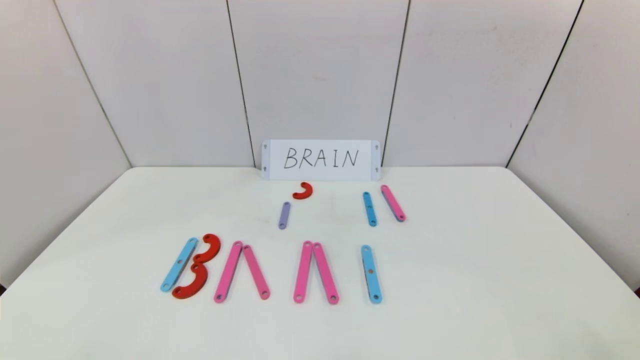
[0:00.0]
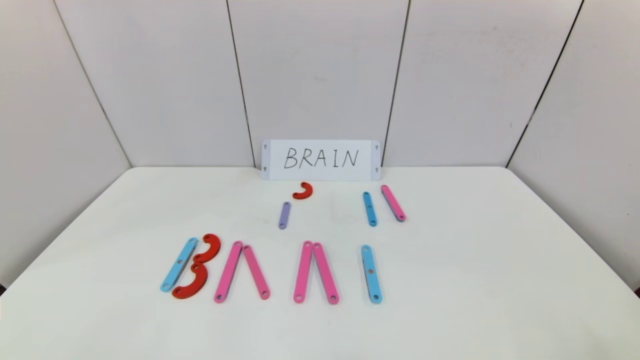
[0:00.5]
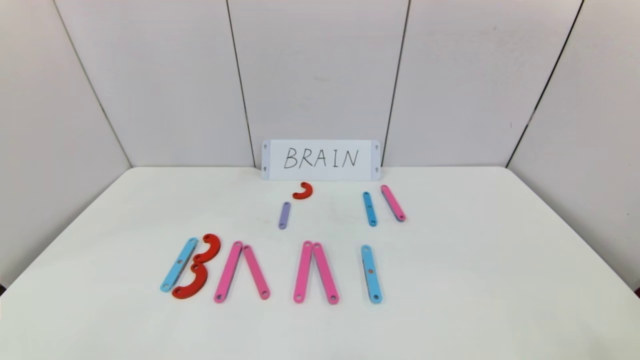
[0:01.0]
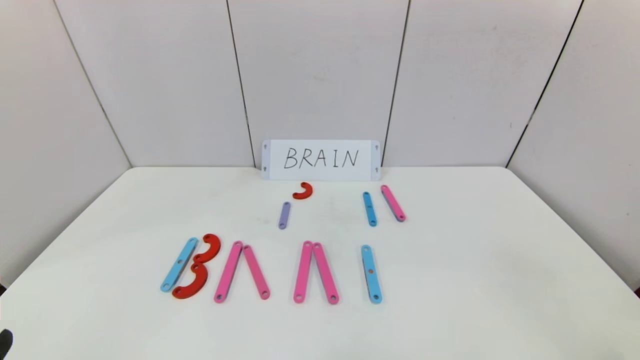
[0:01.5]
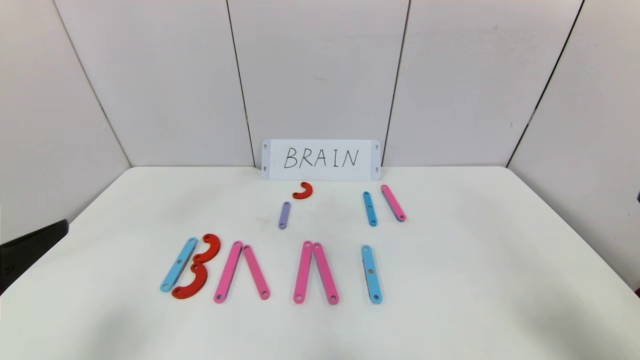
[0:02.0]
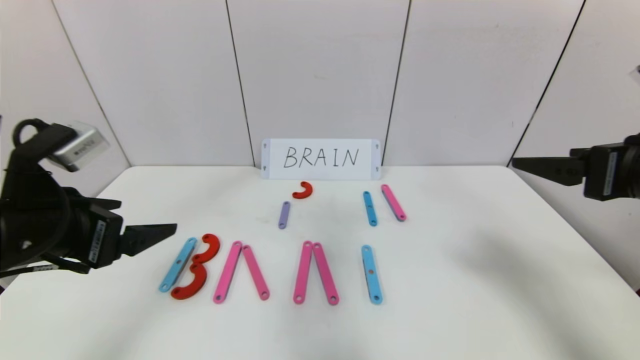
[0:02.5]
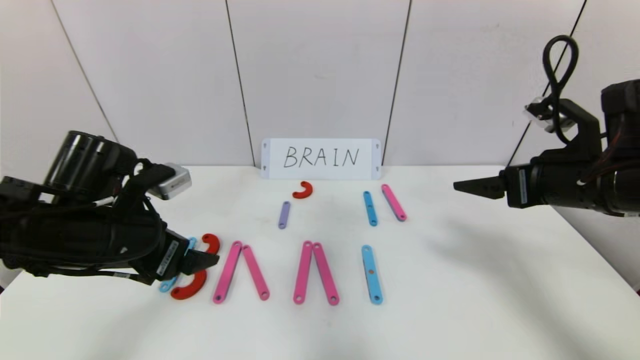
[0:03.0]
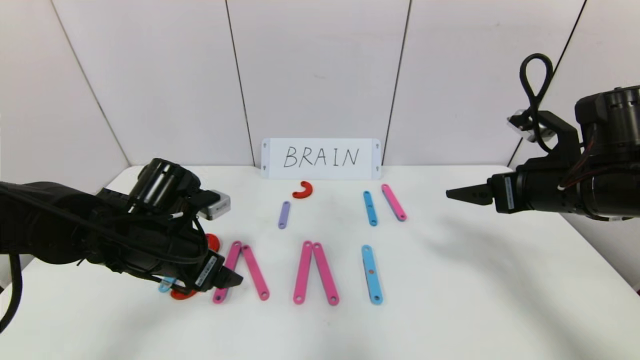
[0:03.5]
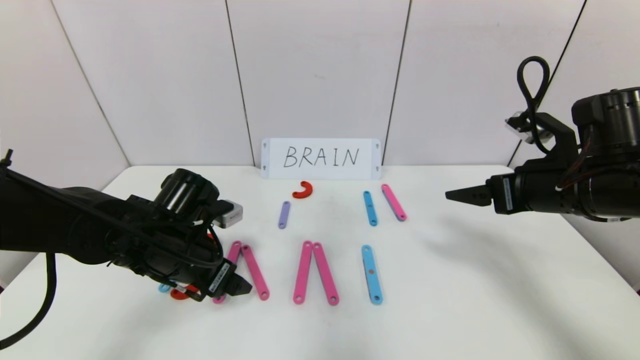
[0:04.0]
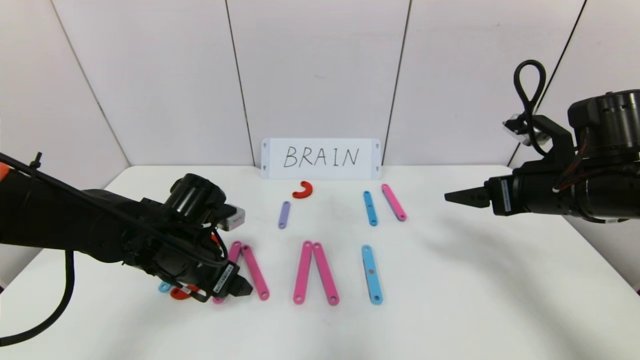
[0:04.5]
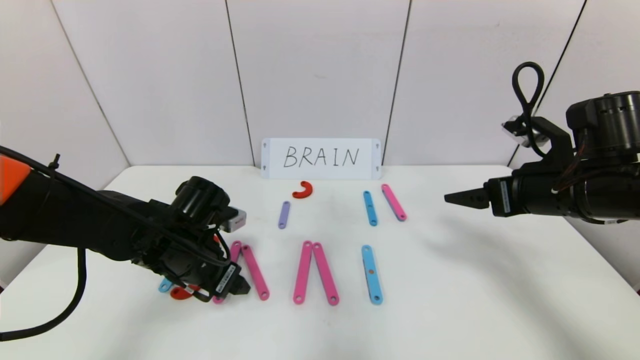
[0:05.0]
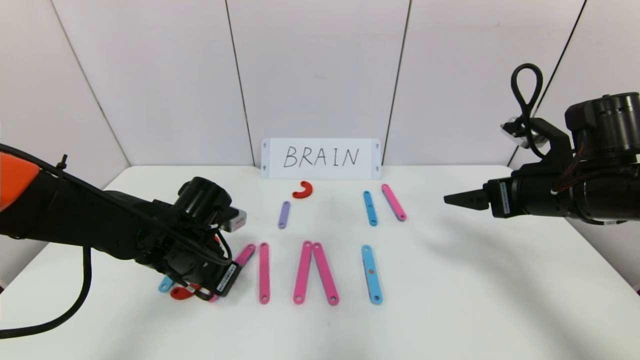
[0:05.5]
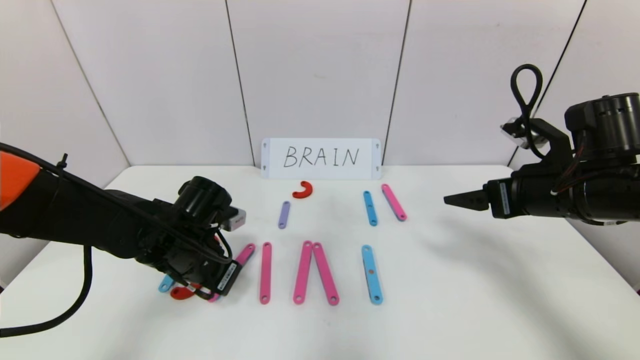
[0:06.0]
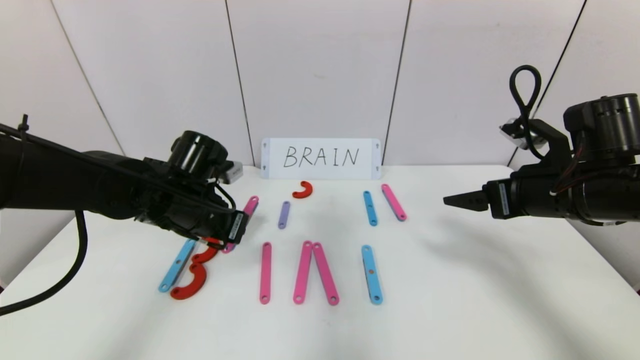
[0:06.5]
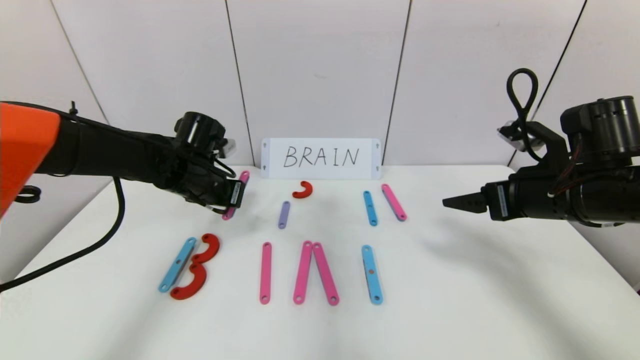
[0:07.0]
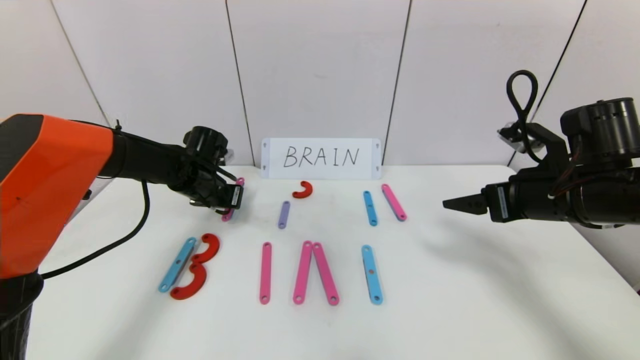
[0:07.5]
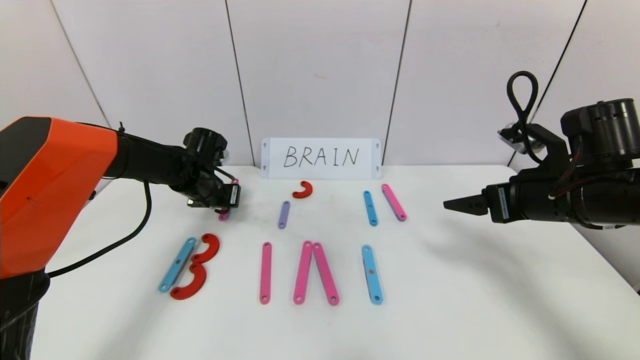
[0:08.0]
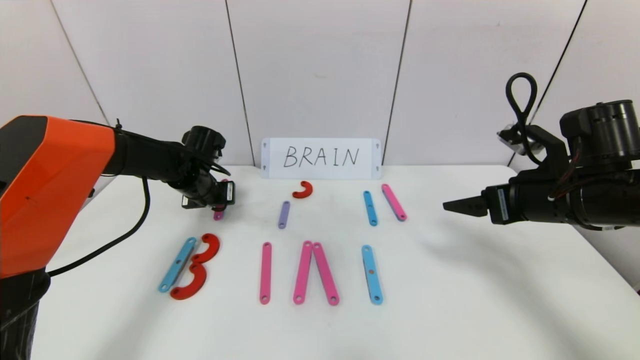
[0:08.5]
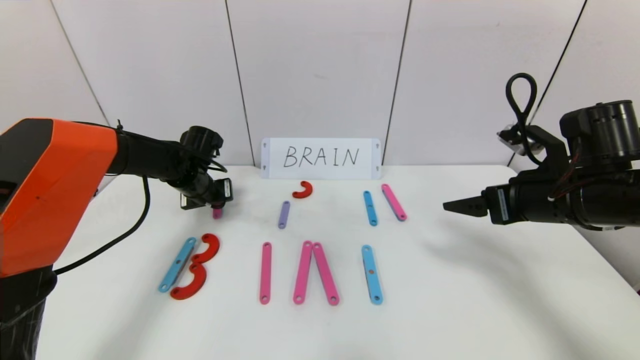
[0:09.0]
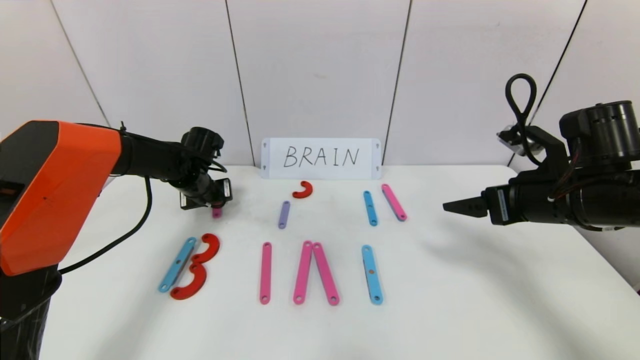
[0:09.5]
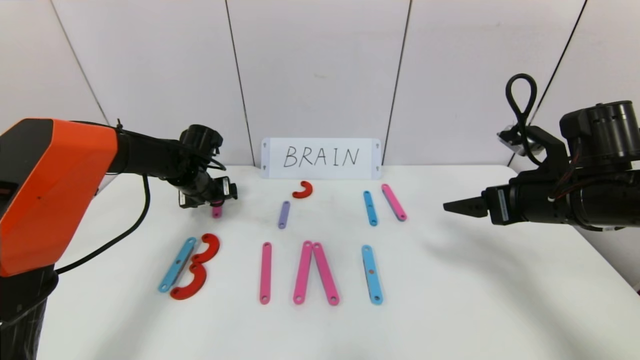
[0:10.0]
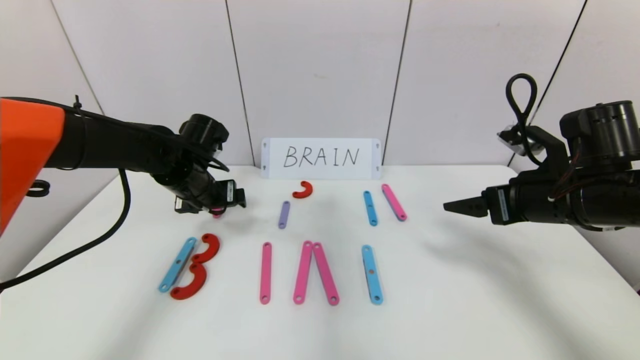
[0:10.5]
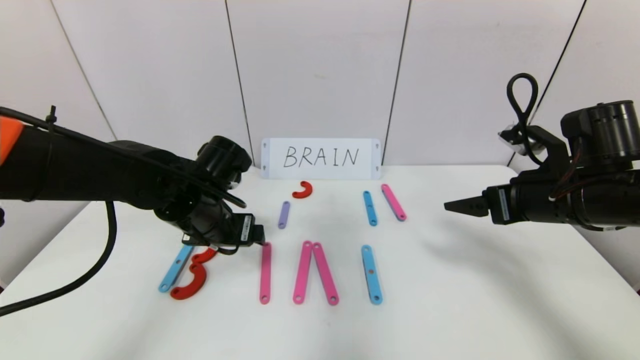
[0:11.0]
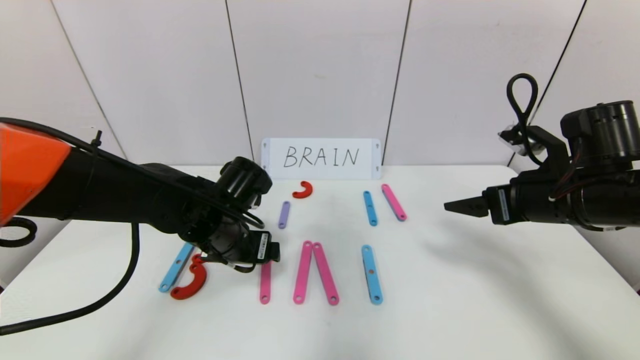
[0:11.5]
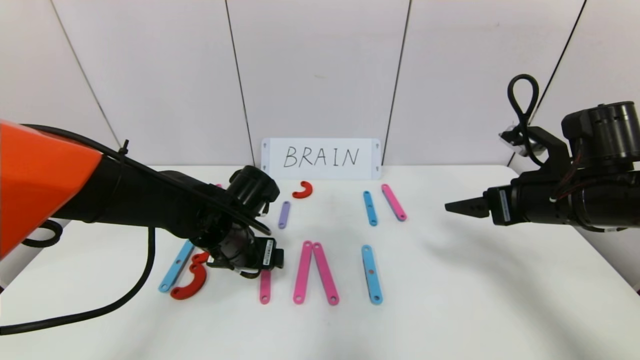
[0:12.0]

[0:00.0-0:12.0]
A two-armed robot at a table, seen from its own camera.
Task of the whole recording: rearrange the word baai as brain.
0:00.0 to 0:02.0: Both grippers travel together upward and forward, approximately 20 cm.
0:02.0 to 0:04.0: The left gripper travels forward, downward and to the right by about 25 cm. Meanwhile the right gripper shifts approximately 20 cm forward.
0:04.0 to 0:06.0: The left gripper closes up.
0:06.0 to 0:08.0: The left gripper goes roughly 15 cm forward.
0:08.0 to 0:10.0: The left gripper opens its fingers.
0:10.0 to 0:12.0: The left gripper moves backward and to the right, approximately 20 cm.

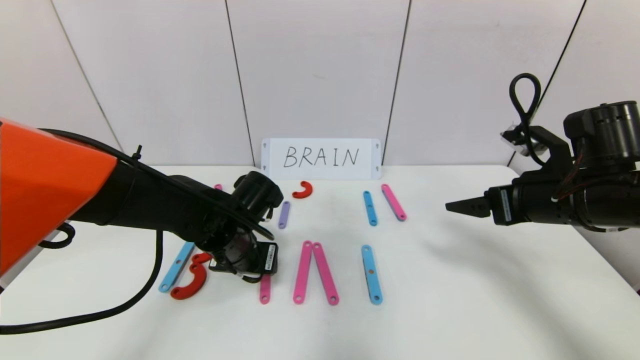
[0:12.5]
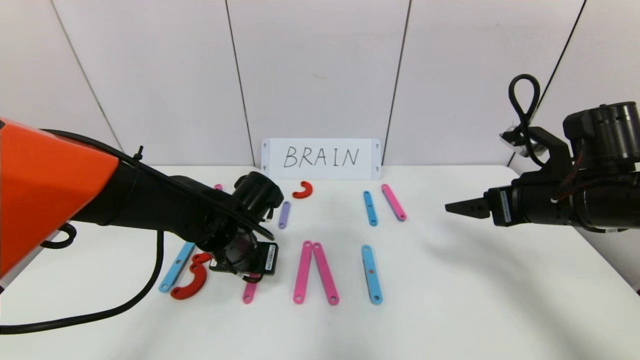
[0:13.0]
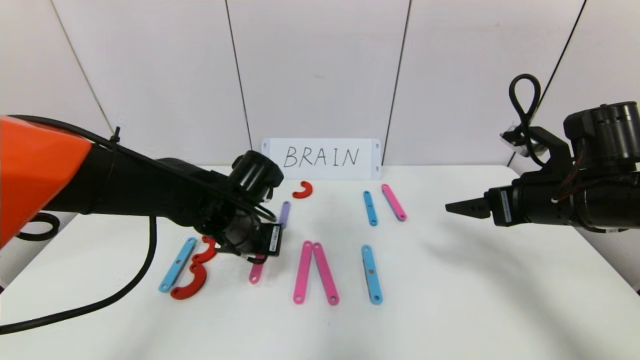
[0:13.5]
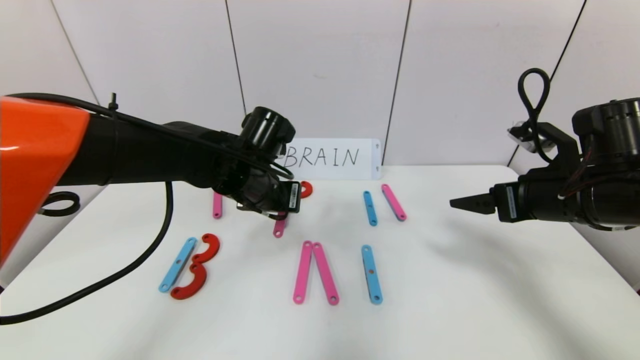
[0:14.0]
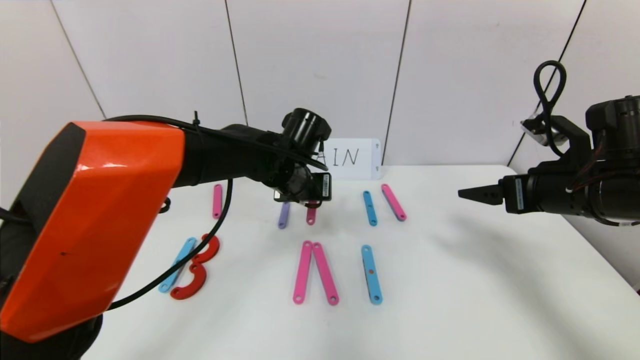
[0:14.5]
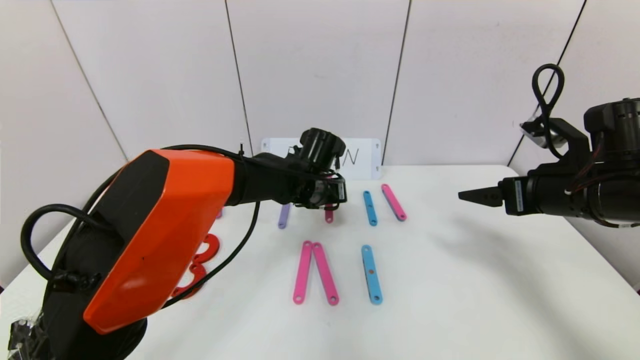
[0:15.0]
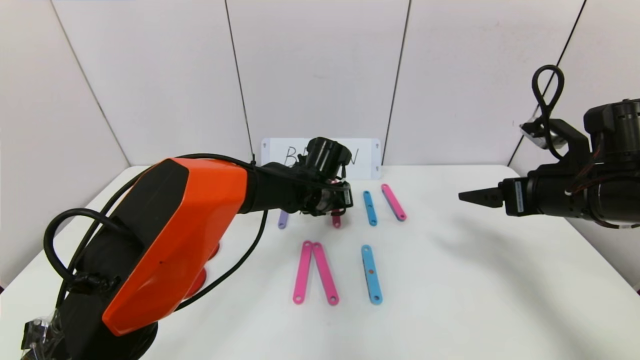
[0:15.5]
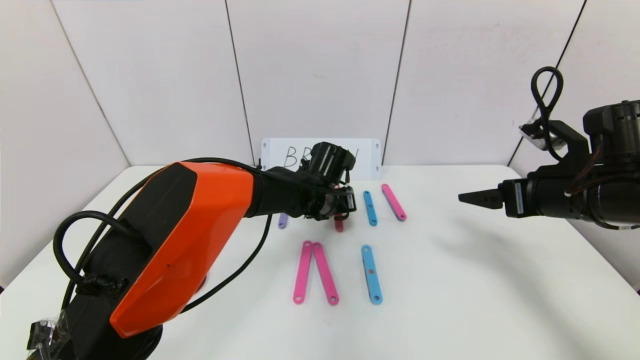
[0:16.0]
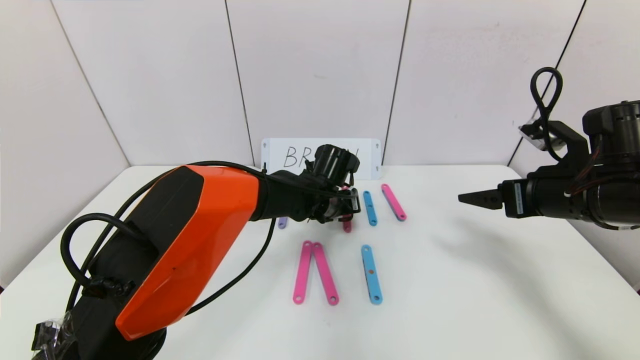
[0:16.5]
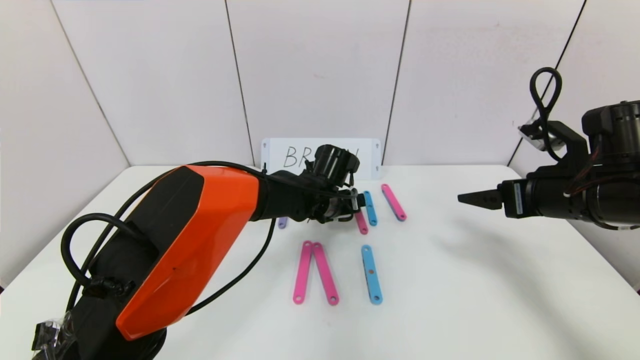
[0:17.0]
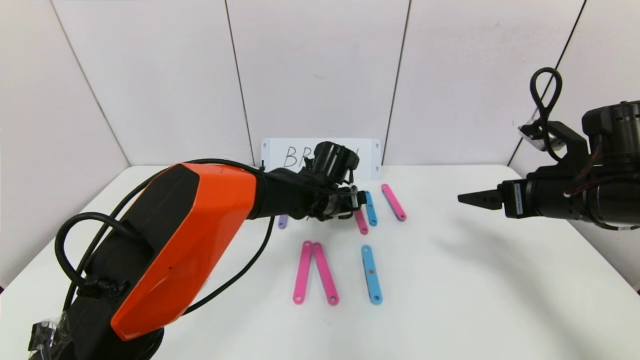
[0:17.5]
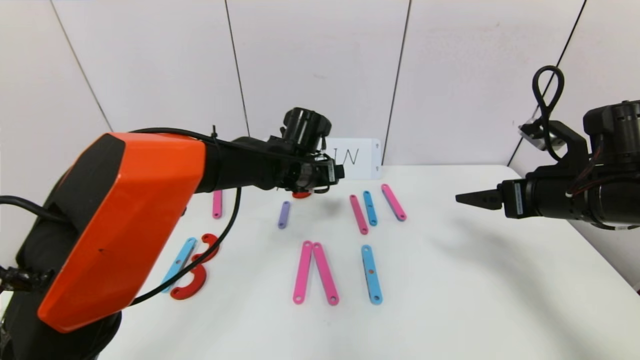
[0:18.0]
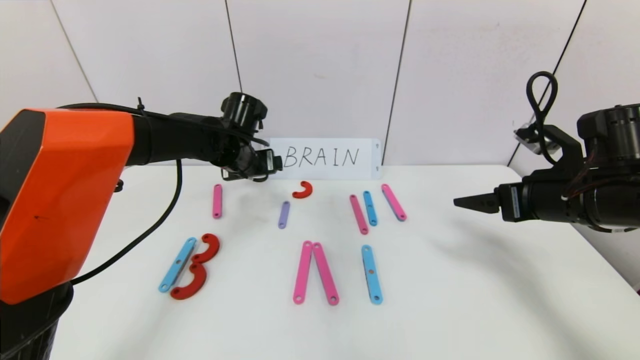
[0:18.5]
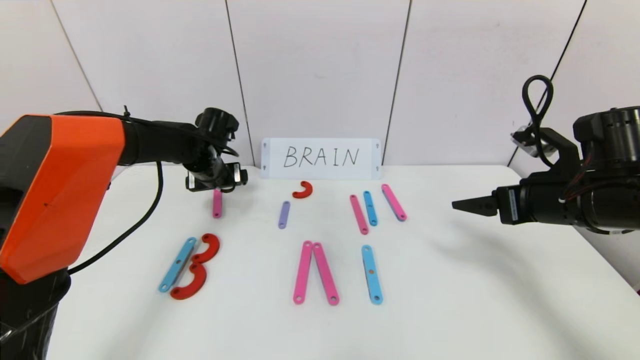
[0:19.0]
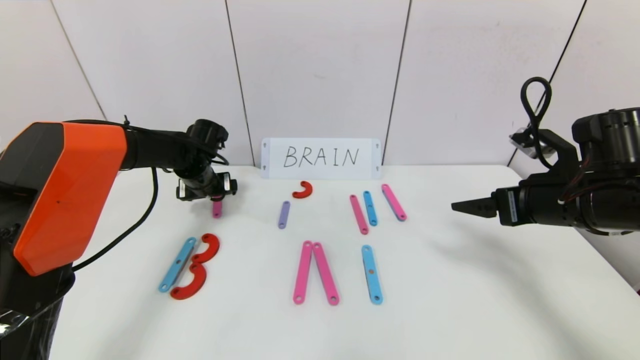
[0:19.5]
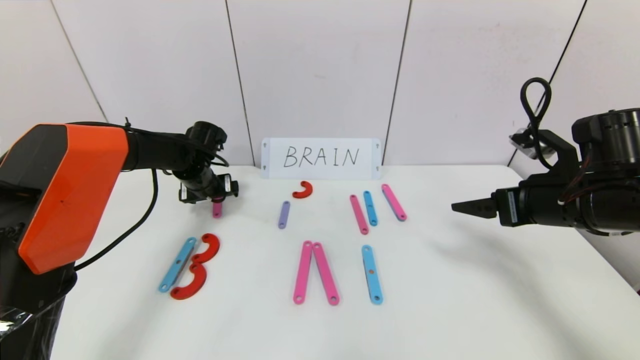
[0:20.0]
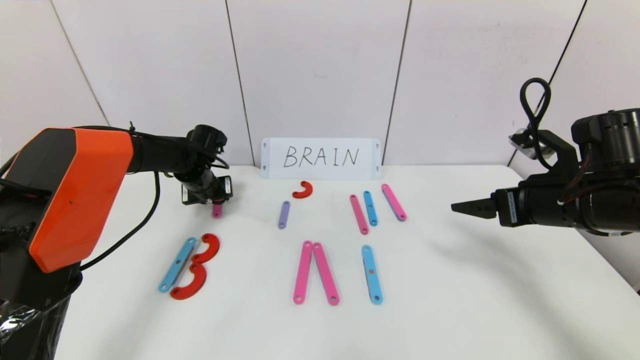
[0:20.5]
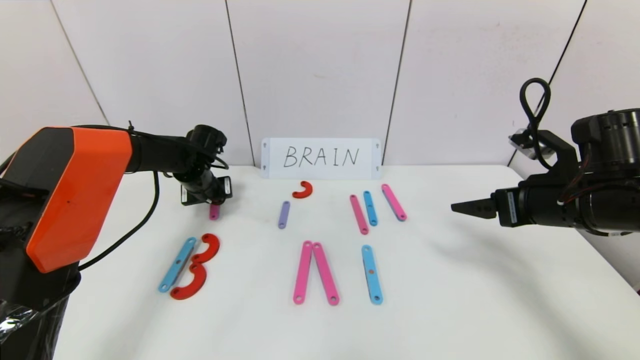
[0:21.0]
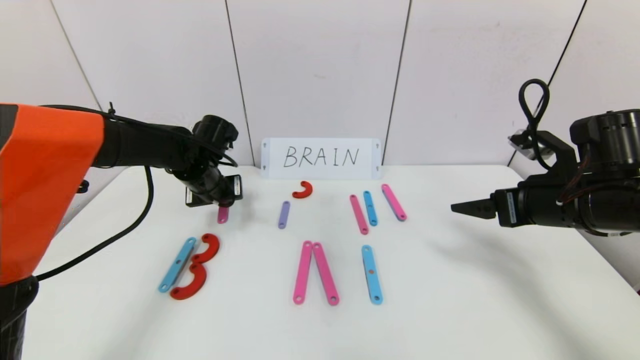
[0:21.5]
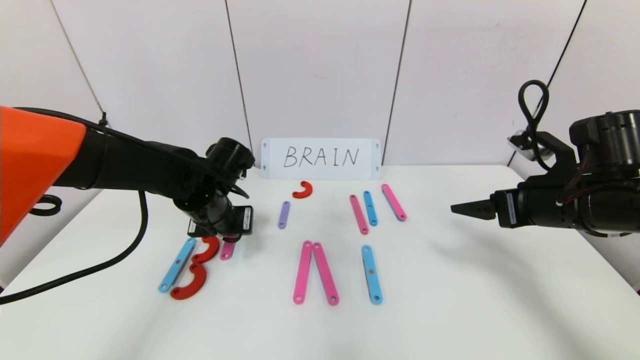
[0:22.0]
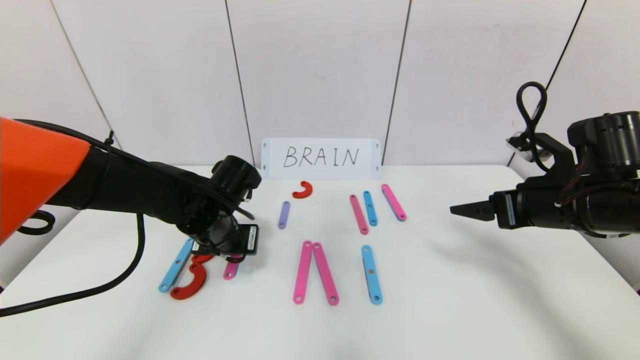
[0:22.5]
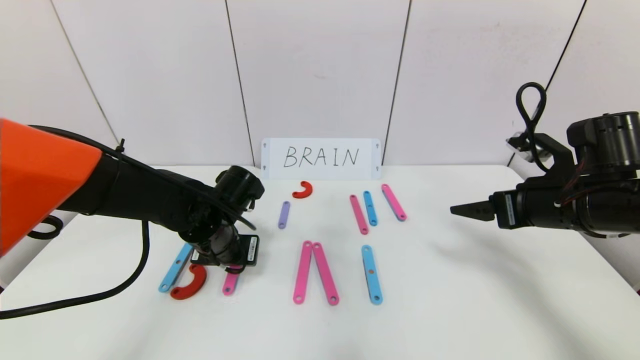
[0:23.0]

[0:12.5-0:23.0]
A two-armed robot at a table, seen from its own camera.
Task of the whole recording: rearrange the word baai as brain.
Step, 0:12.5 to 0:17.0: Disassemble the second character A.
0:12.5 to 0:14.5: The left gripper moves to the right, forward and upward, about 15 cm, and closes its fingers.
0:14.5 to 0:16.5: The left gripper is displaced downward and to the right by some 10 cm.
0:16.5 to 0:19.0: The left gripper shifts roughly 20 cm to the left, and opens.
0:19.0 to 0:21.0: The left gripper shifts by roughly 5 cm, and closes up.
0:21.0 to 0:23.0: The left gripper moves backward and to the right, roughly 15 cm.
